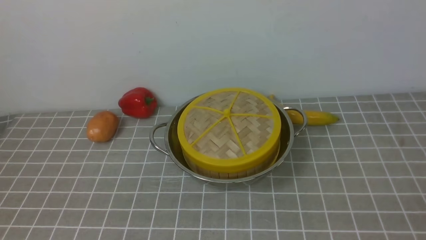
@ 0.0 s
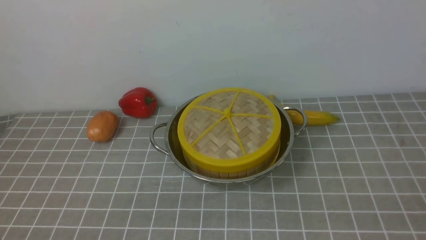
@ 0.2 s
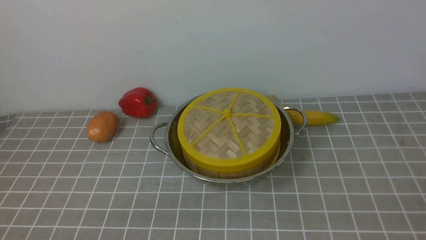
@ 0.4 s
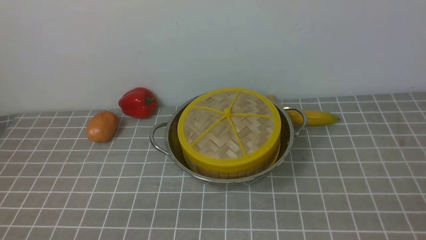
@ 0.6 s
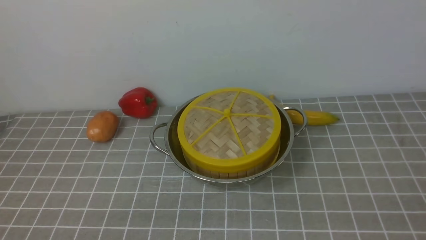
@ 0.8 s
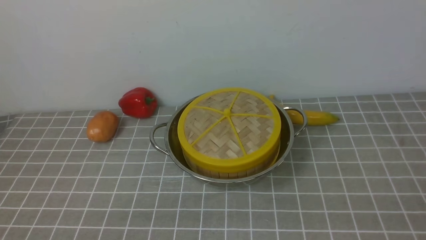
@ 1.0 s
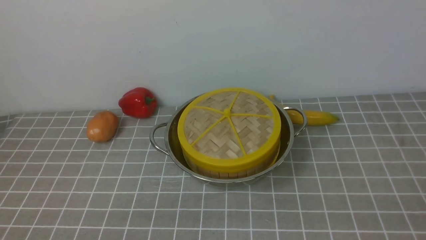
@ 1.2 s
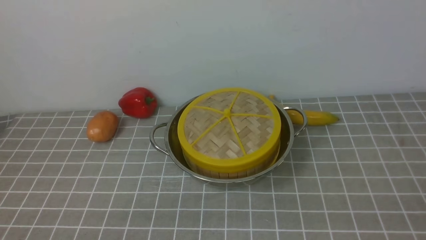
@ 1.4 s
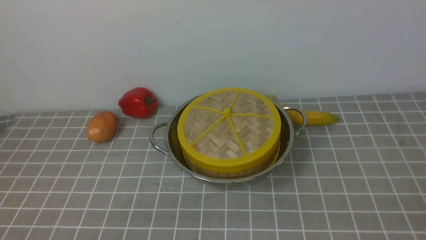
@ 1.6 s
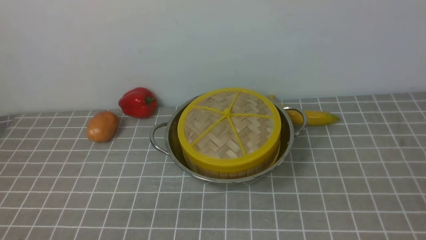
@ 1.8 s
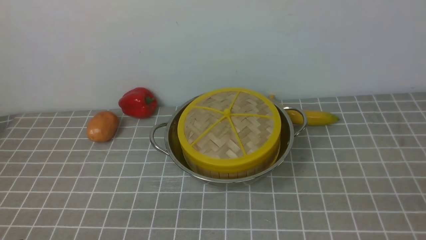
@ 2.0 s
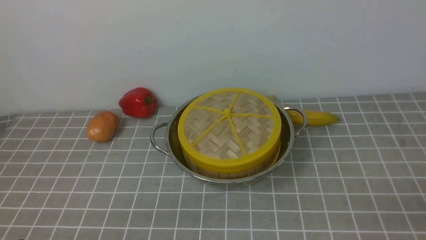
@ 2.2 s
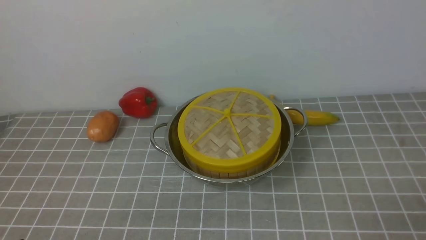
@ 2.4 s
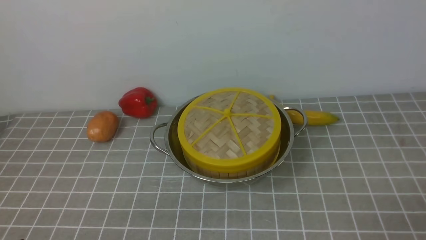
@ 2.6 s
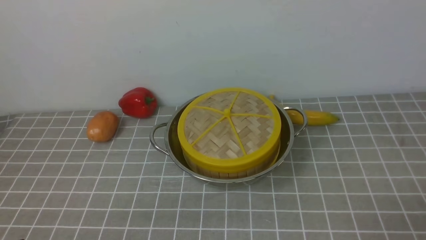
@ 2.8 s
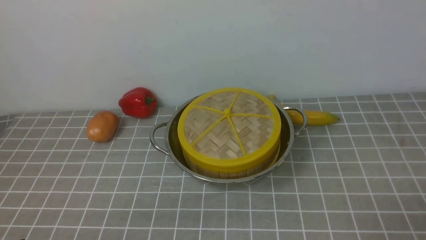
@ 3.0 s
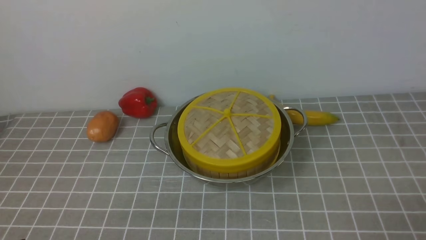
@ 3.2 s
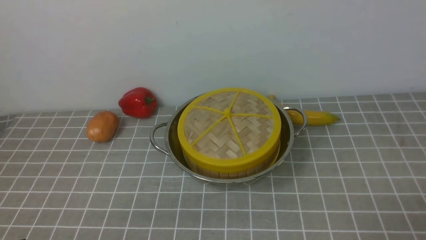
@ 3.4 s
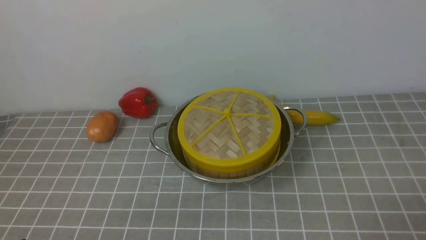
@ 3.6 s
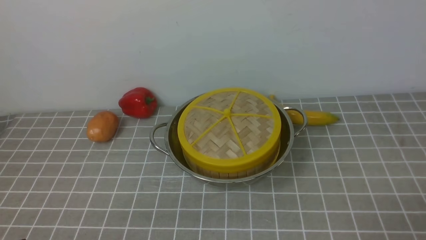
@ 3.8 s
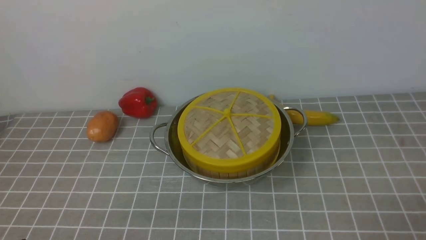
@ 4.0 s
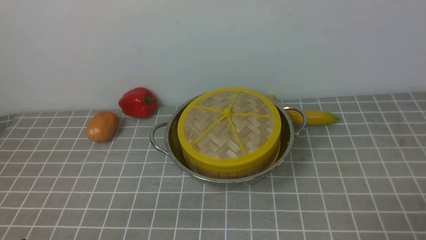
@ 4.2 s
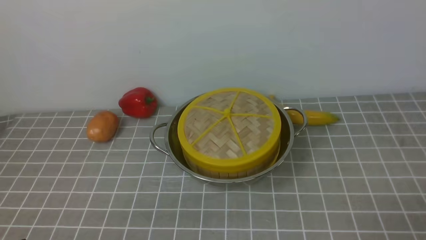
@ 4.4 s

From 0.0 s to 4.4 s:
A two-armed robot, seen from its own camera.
Task of the whole recording: place the steamer in the pot on the grey tablecloth, and put the lid on the steamer.
From 3.0 s to 4.4 s: The two grippers keep their place.

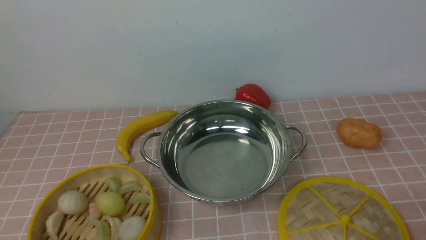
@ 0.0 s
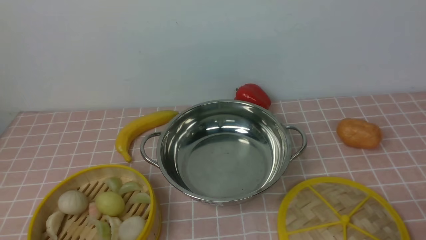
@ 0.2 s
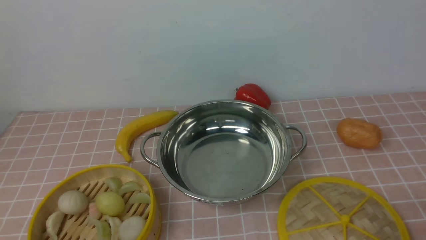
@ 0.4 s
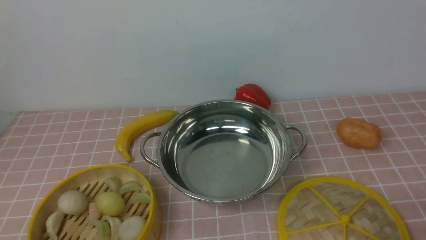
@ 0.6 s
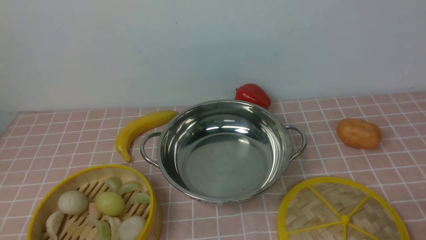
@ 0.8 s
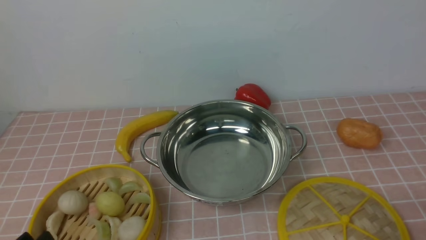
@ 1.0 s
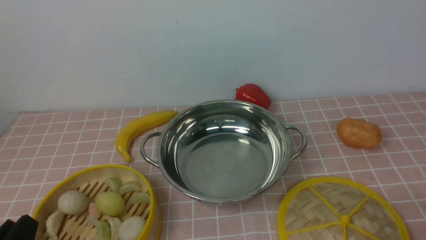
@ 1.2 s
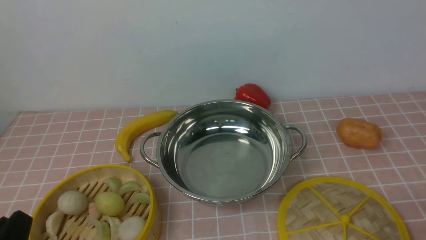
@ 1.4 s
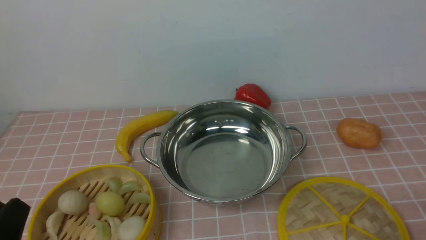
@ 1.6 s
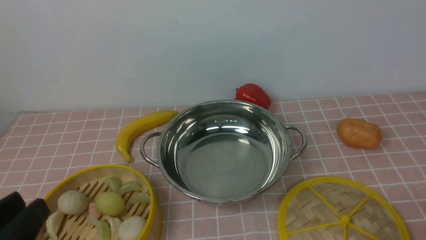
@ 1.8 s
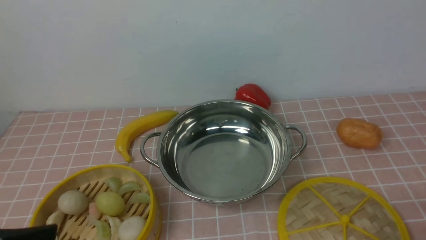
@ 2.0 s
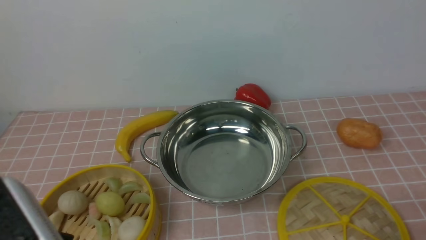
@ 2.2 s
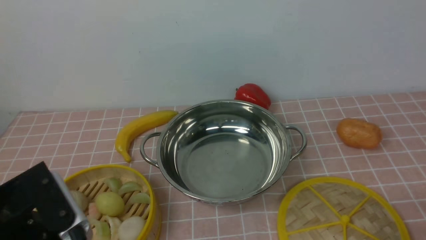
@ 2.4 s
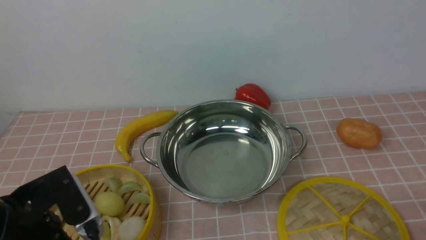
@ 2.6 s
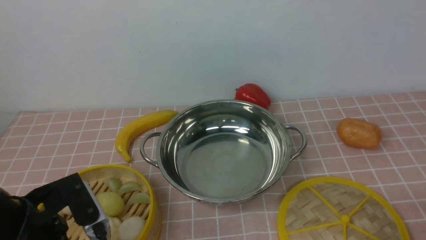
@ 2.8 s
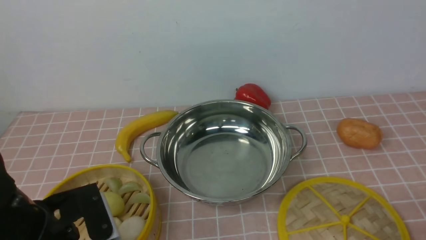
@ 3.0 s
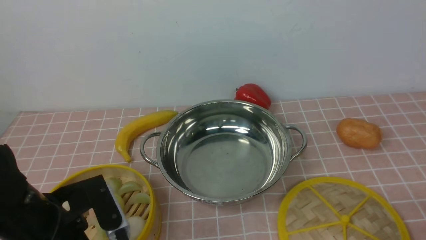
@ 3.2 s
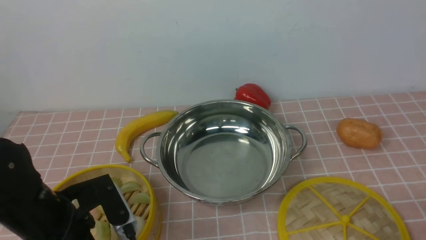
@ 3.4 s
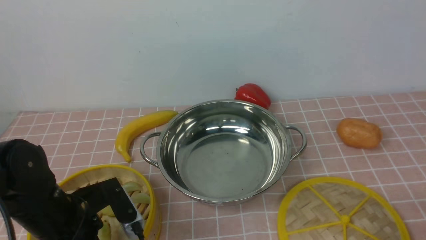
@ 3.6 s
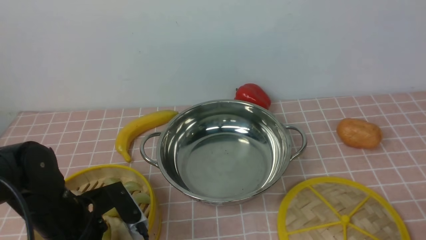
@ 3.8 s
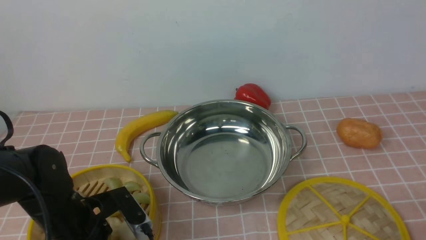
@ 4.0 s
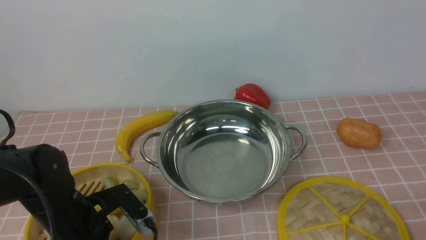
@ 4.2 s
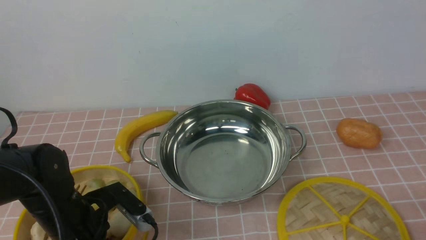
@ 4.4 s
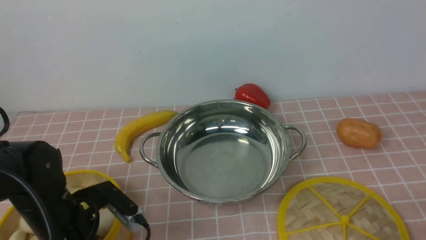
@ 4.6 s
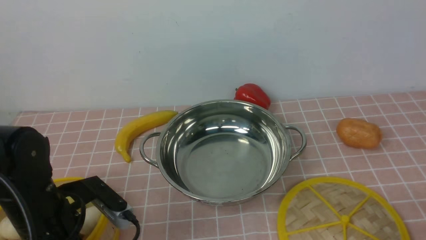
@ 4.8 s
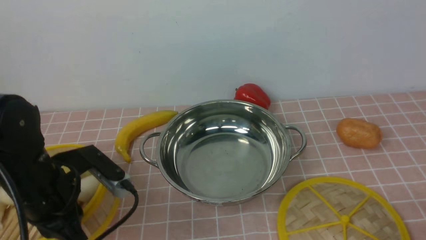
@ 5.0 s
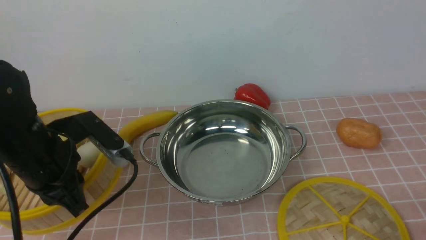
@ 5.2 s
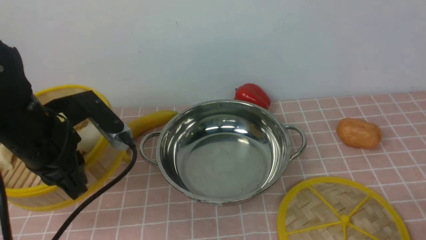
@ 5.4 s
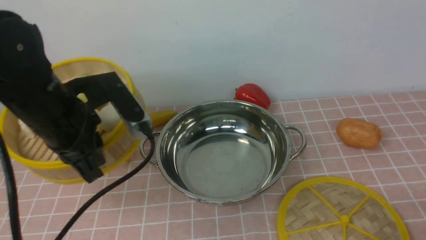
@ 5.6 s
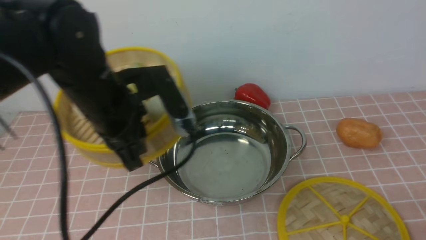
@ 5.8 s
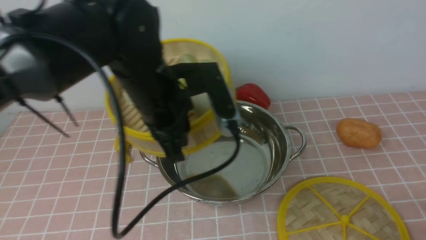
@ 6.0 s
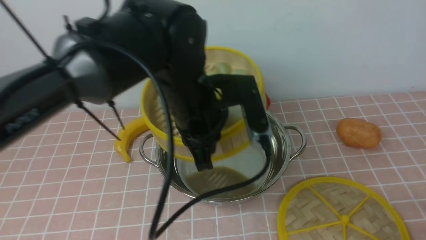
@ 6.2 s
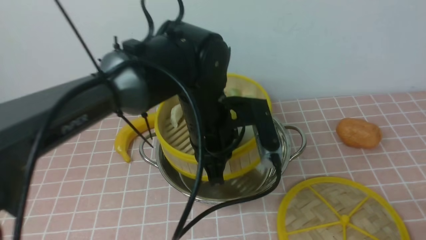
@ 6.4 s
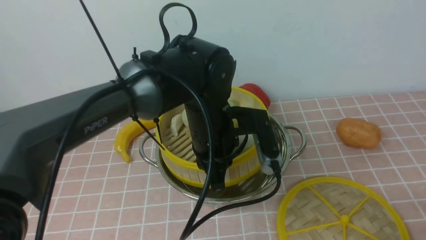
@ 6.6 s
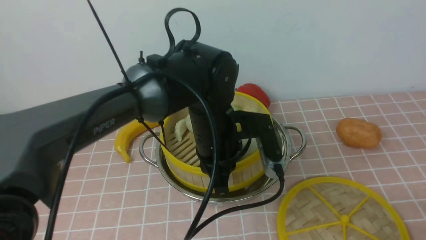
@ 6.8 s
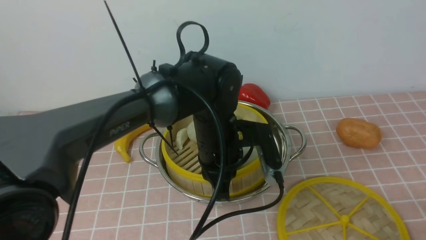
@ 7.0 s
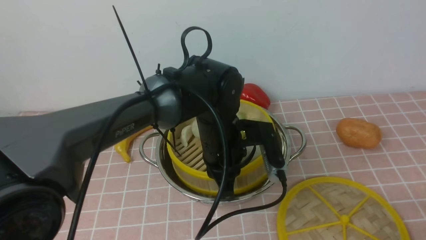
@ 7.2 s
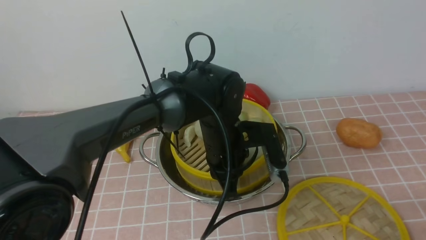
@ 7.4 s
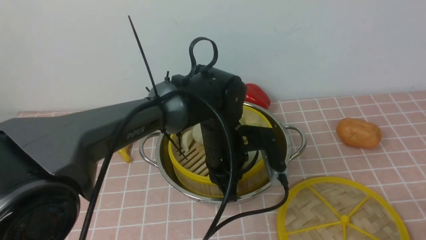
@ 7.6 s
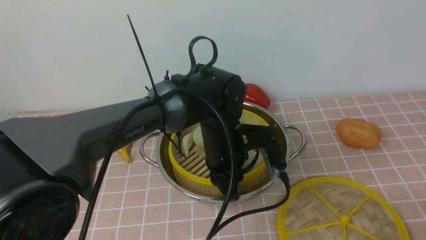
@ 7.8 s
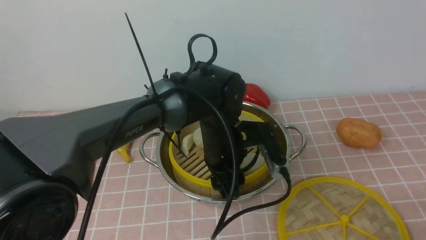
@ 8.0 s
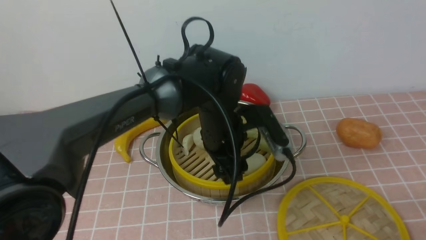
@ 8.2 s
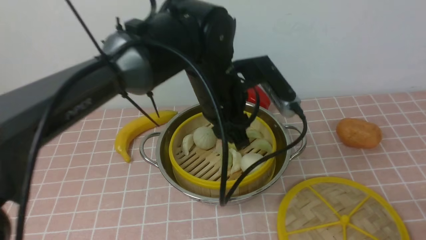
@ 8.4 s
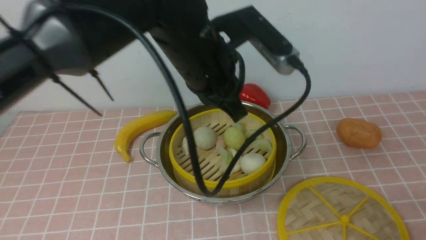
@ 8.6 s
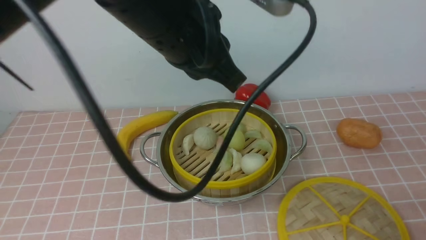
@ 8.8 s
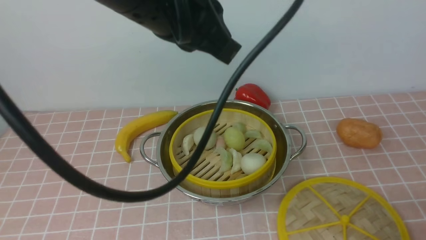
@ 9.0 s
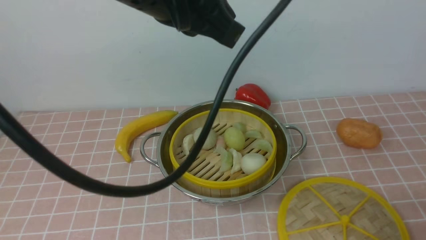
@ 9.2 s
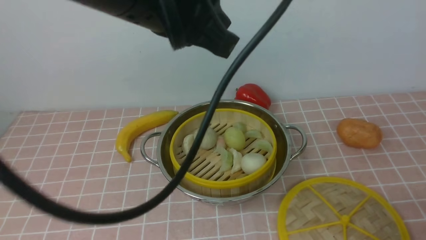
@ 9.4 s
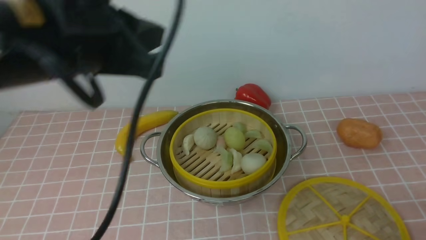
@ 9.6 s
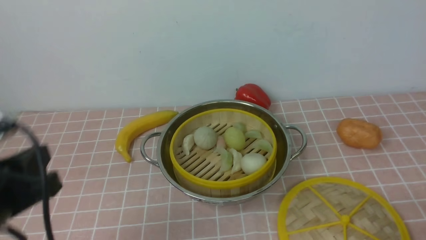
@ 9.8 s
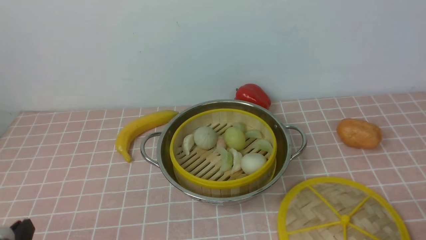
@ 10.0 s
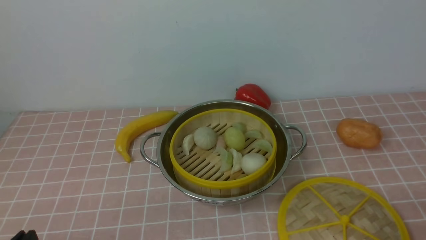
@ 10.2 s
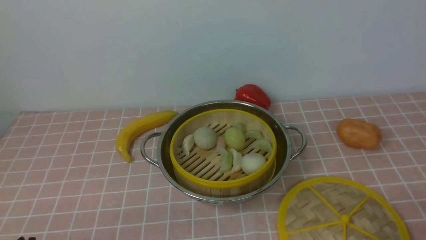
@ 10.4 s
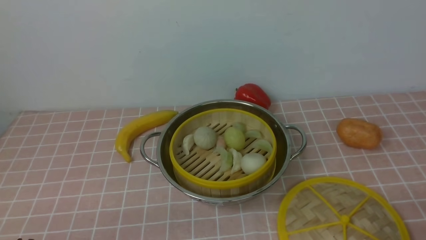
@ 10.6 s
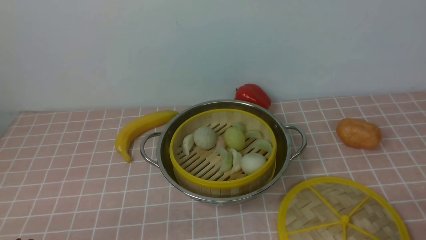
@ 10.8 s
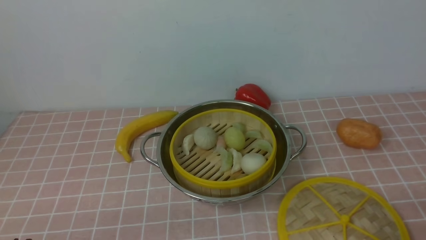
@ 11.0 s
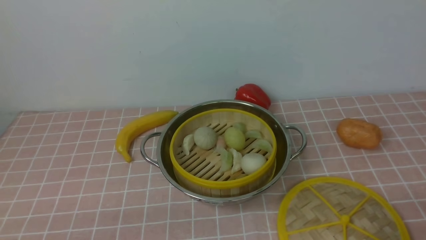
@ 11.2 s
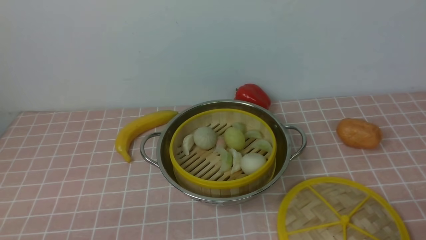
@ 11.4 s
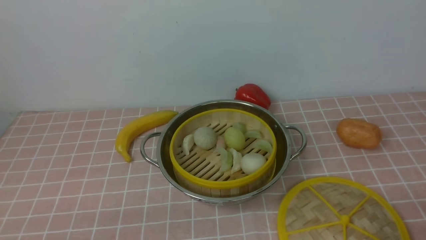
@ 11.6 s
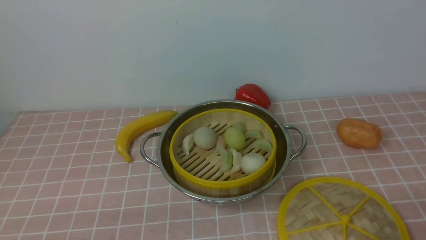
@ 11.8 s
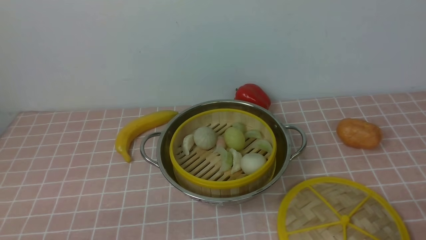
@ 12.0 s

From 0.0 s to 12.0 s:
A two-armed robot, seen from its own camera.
Task of the whole recording: place the steamer in the pot on the pink tablecloth, and put the lid on the steamer.
Step, from 0.0 s to 4.8 s: use the left arm to lift the steamer closest to it.
Step, from 5.0 s to 8.2 s: use the left arm to put the steamer into the iron steamer pot in the middle.
From 1.6 s to 3.0 s: The left gripper shifts about 10 cm forward.
From 3.0 s to 4.4 s: The left gripper moves downward, about 5 cm, and closes up.
From 4.4 s to 6.0 s: The left gripper shifts roughly 20 cm upward, to the right and forward.
From 6.0 s to 7.6 s: The left gripper shifts approximately 15 cm downward and to the right.
From 7.6 s to 9.0 s: The left gripper moves upward, about 25 cm, and opens, then closes again.
From 9.0 s to 10.4 s: The left gripper goes about 40 cm downward, backward and to the left.
